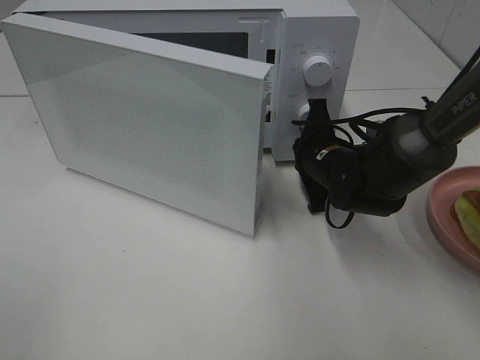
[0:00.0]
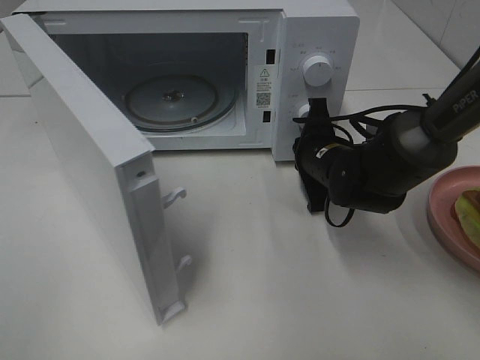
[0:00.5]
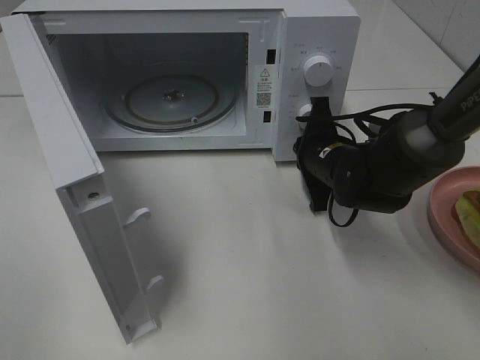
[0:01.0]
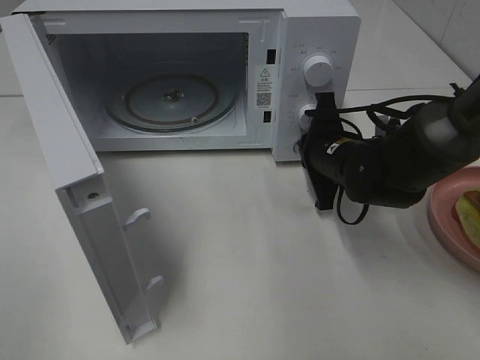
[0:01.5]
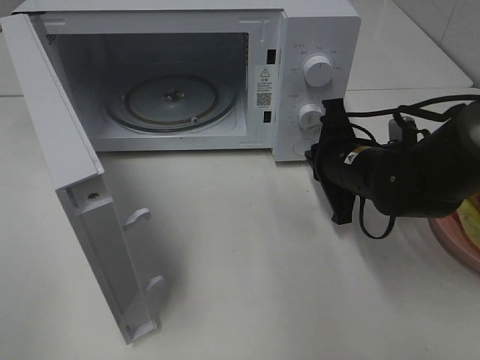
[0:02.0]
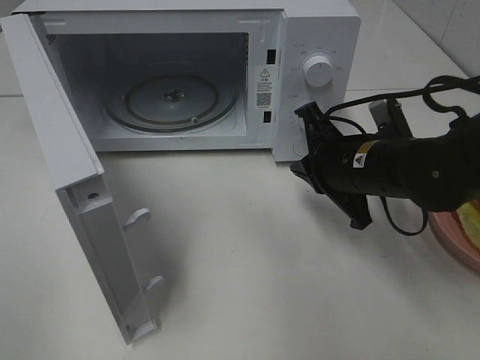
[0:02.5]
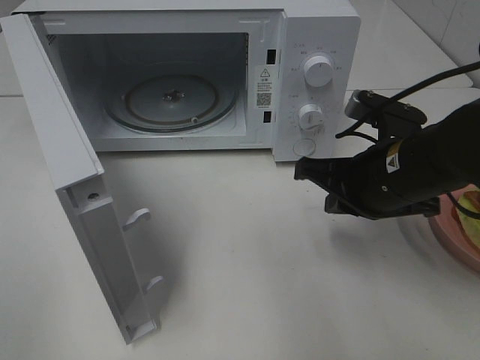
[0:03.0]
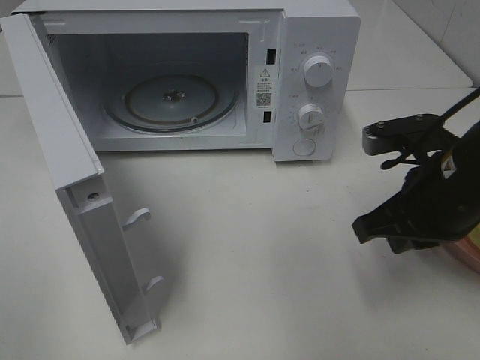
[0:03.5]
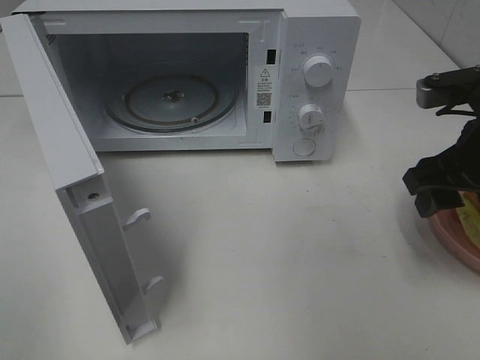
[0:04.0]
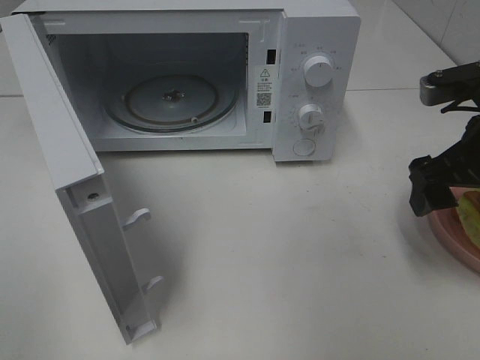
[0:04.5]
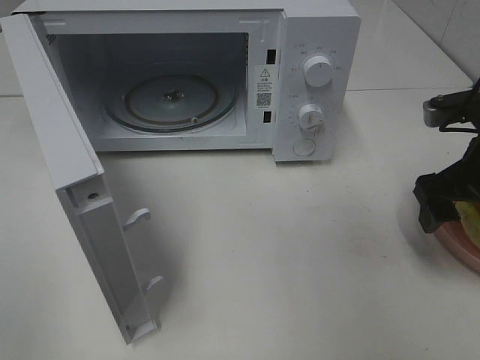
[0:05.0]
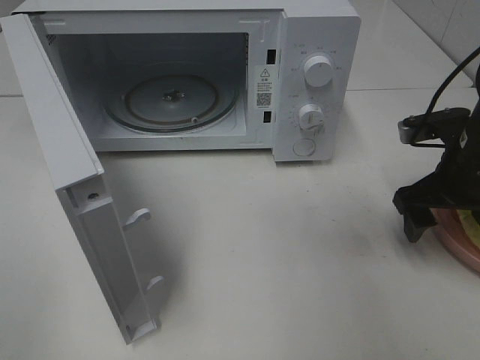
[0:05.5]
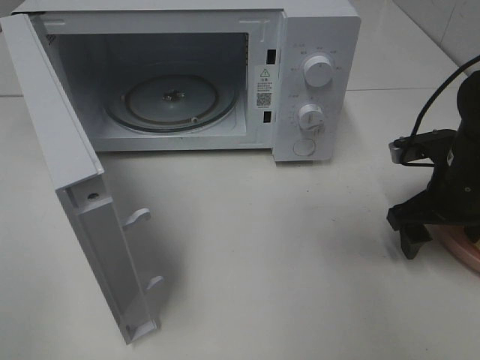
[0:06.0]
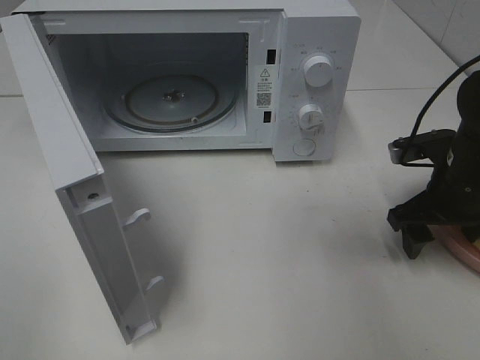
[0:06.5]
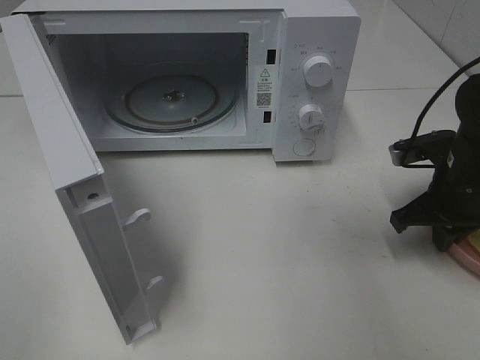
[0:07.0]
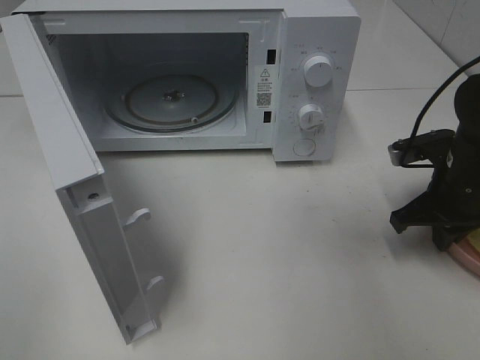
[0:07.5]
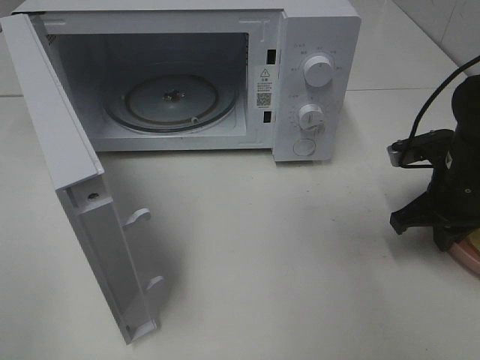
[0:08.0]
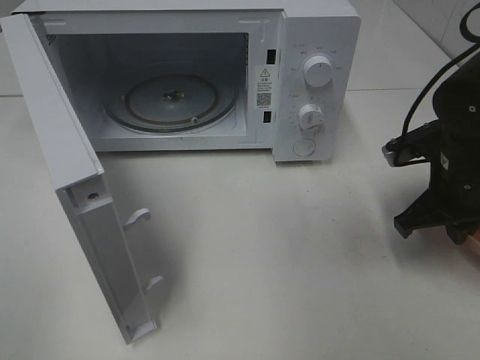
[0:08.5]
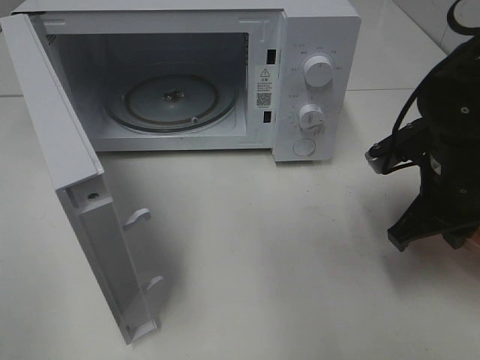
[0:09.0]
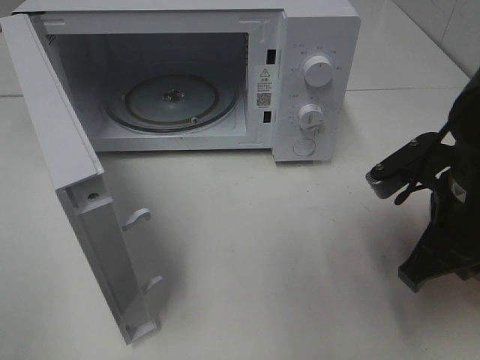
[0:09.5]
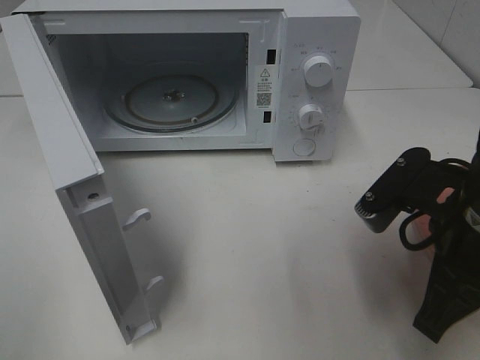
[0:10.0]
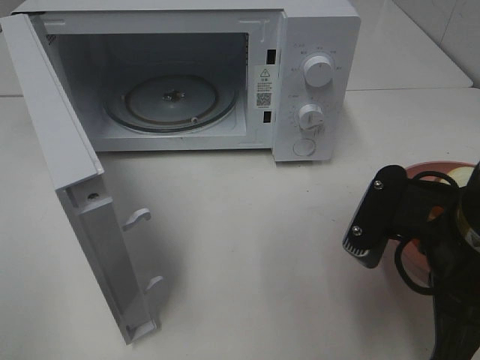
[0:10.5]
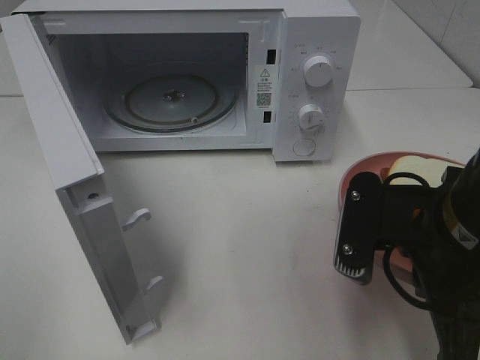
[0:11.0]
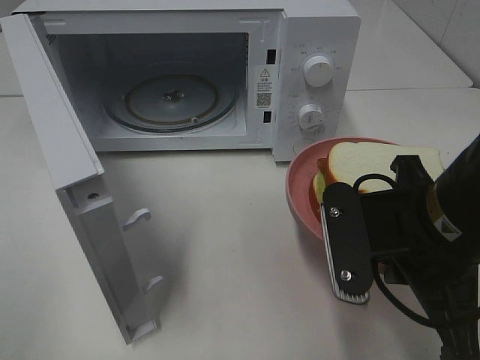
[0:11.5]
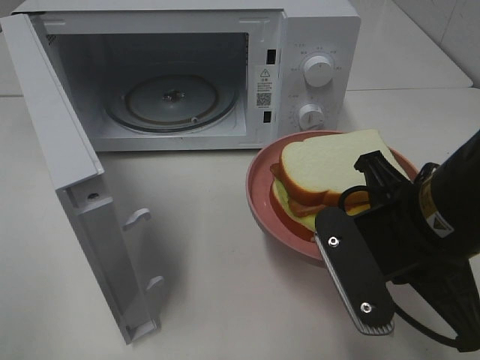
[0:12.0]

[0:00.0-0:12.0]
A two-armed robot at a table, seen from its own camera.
Task of the whole recording: Heat Sandwich.
Step, 0:02.0 to 0:07.5: Right hand: grab the plate with the sandwich.
0:00.0 to 0:02.0: The right gripper ends up about 5 cm from where it was.
0:02.0 to 0:04.0: The right gripper travels upward, to the right and backward by approximately 15 cm, and opens its fingers.
0:04.0 to 0:06.0: The right gripper moves downward, approximately 10 cm.
0:06.0 to 0:08.0: The right gripper closes its fingers.
0:08.0 to 0:10.0: The right gripper heads backward, to the left and upward, covering some 15 cm.

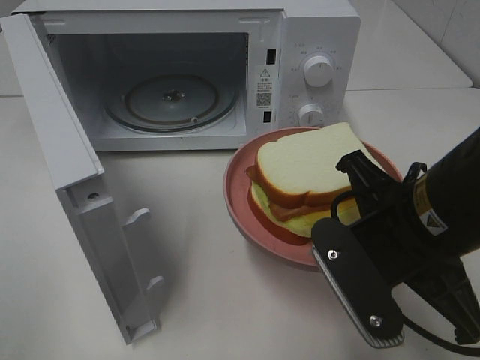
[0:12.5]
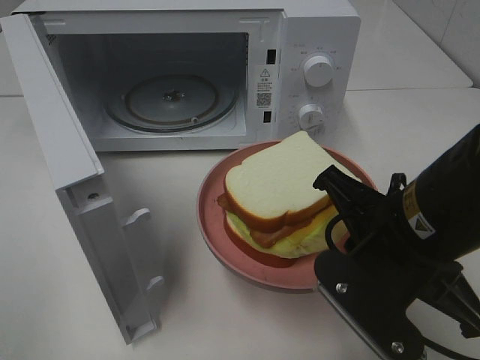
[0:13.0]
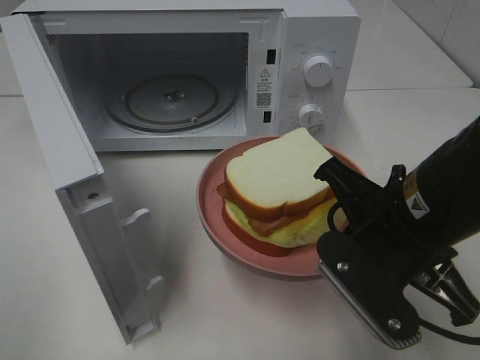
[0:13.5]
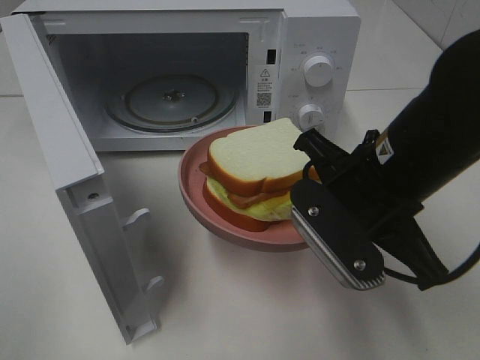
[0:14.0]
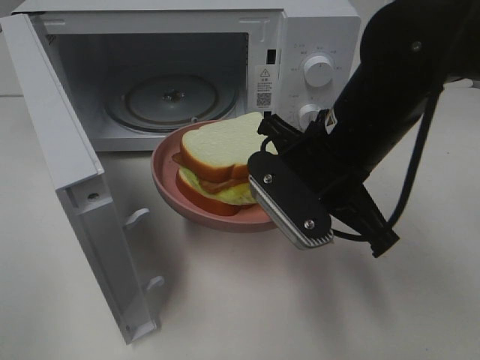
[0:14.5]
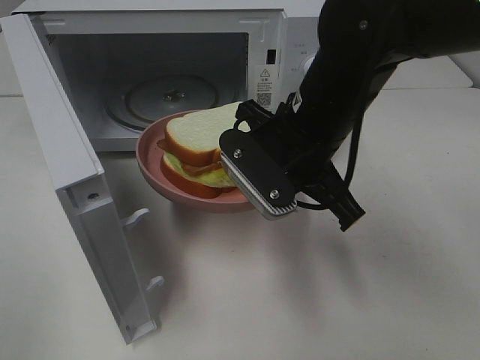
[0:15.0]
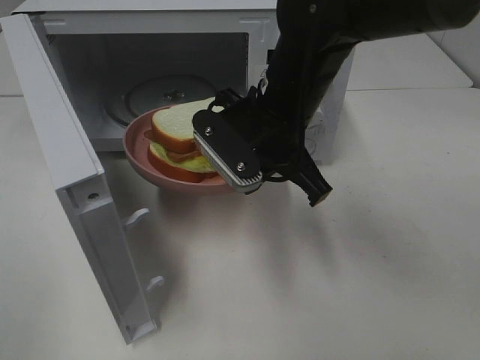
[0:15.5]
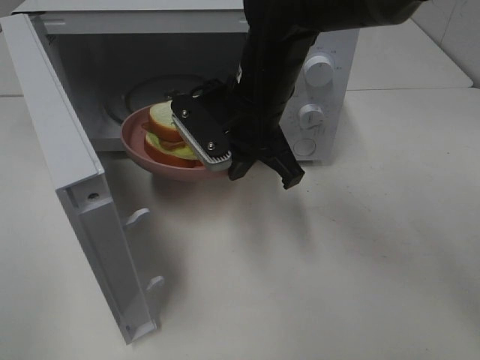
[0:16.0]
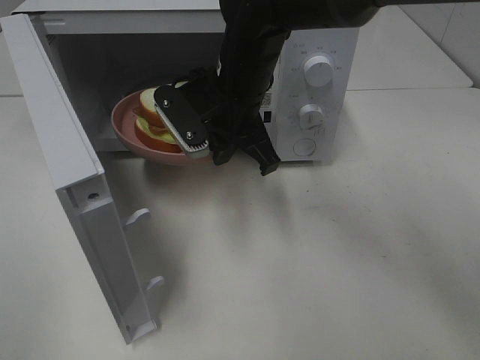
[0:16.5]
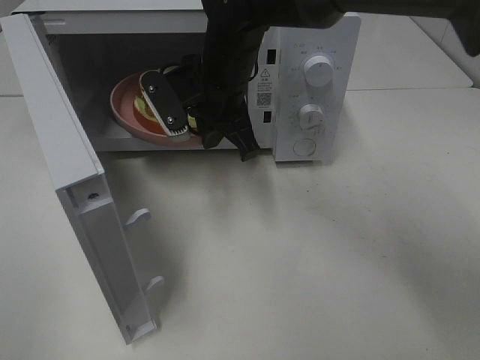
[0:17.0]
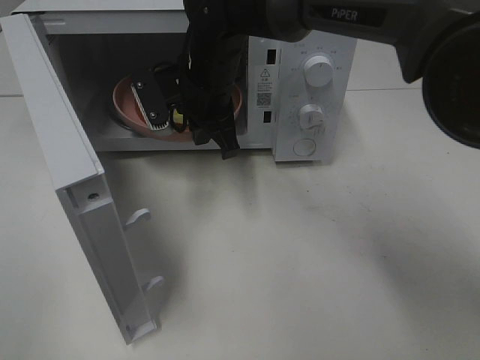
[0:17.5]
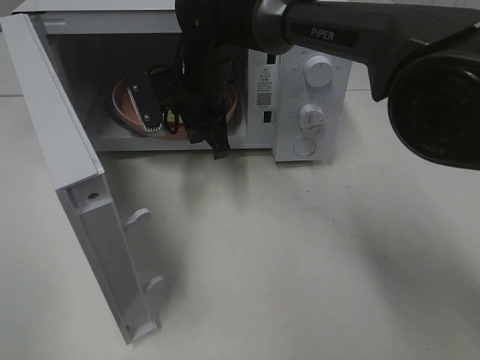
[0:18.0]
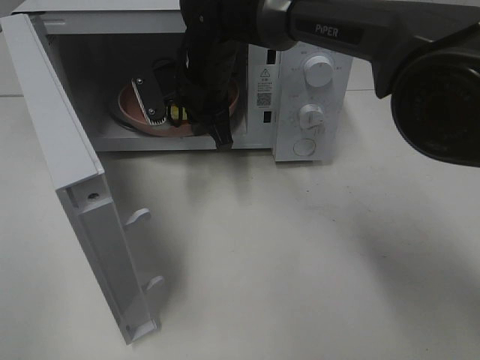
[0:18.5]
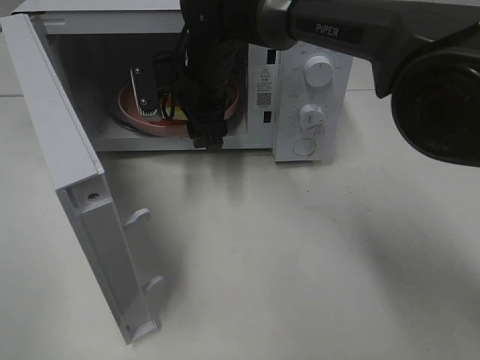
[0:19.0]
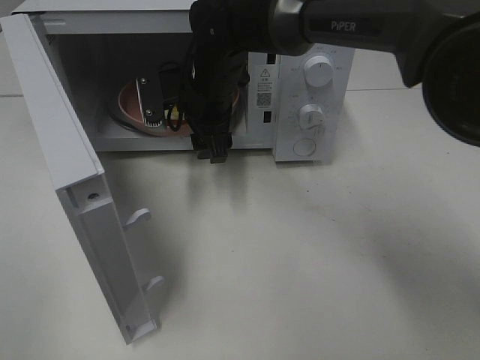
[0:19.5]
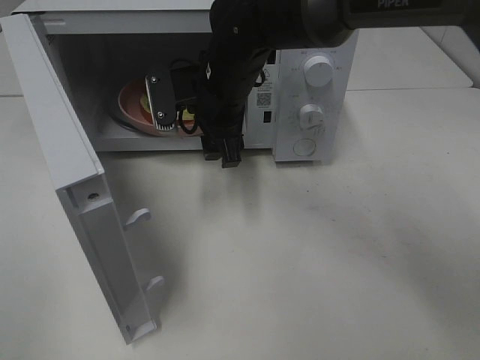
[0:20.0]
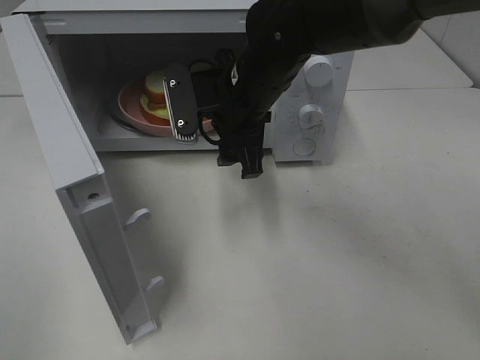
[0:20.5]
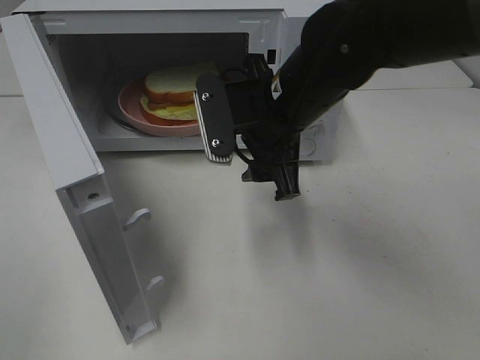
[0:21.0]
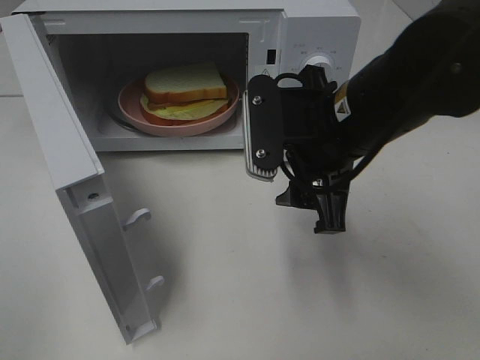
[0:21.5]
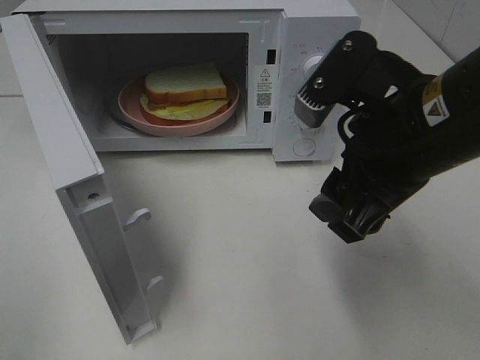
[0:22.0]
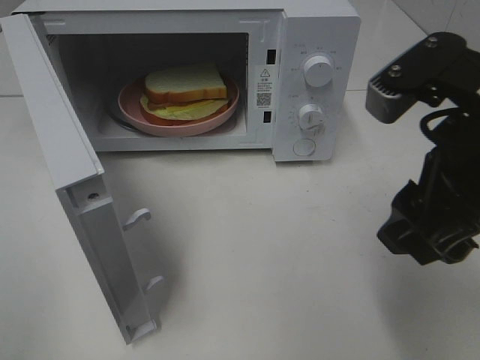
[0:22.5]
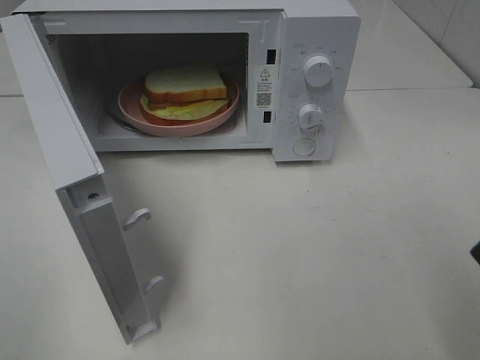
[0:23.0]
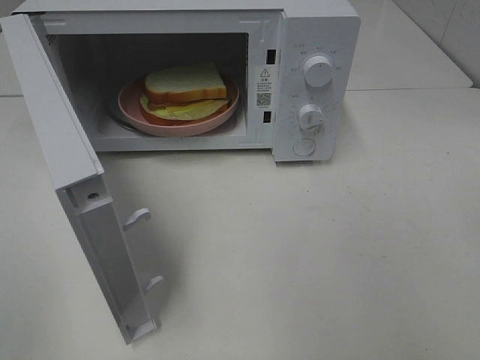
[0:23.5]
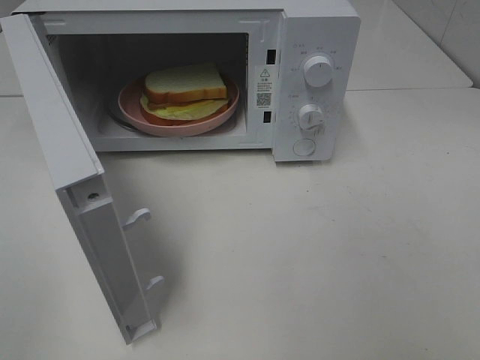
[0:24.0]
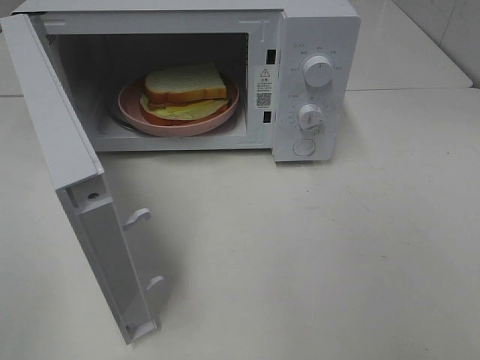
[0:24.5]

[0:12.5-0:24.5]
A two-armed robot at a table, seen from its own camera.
Task of the whole recording: Heat Sandwich.
Step, 0:12.5 to 0:19.5: Right hand: place the plate in the microwave.
0:12.5 to 0:14.5: The right gripper is displaced forward by about 10 cm.
0:14.5 to 0:16.5: The right gripper is displaced forward and to the left by some 15 cm.
0:16.5 to 0:18.5: The right gripper goes approximately 5 cm forward.
0:18.5 to 0:20.5: The right gripper is displaced backward and to the right by roughly 10 cm, and opens.
0:20.5 to 0:22.5: The right gripper travels backward, to the right and upward by roughly 25 cm.
0:22.5 to 0:24.5: The right gripper moves backward and to the right, about 20 cm.

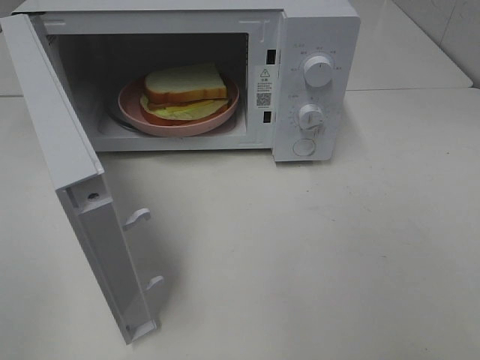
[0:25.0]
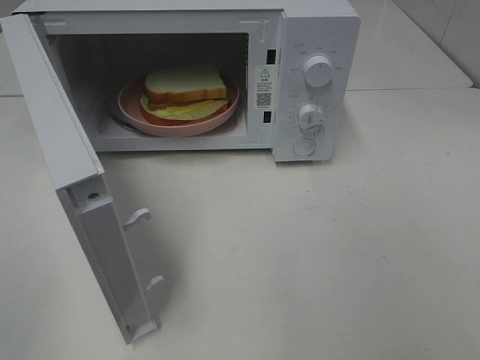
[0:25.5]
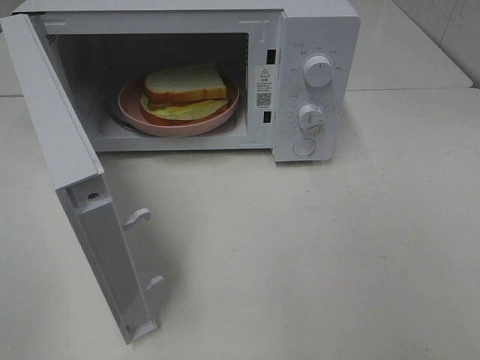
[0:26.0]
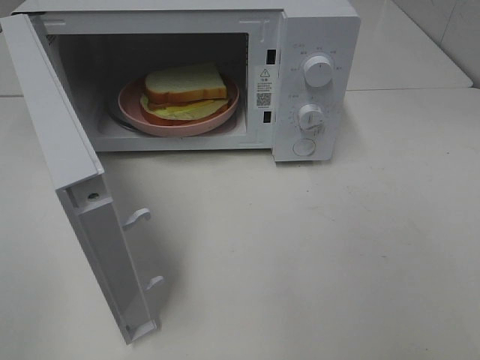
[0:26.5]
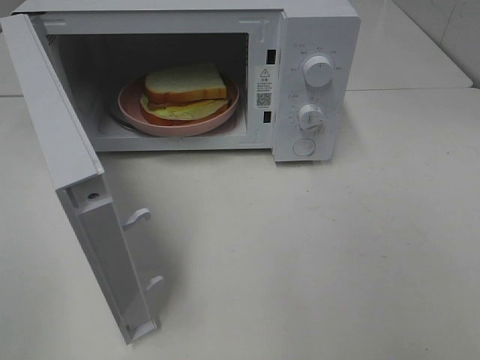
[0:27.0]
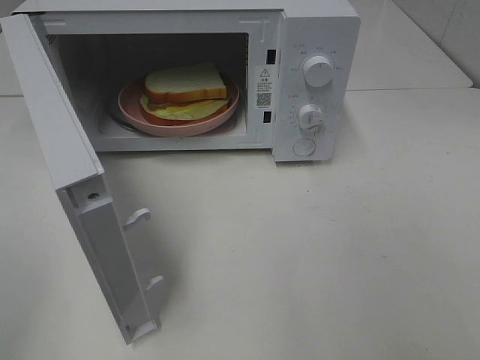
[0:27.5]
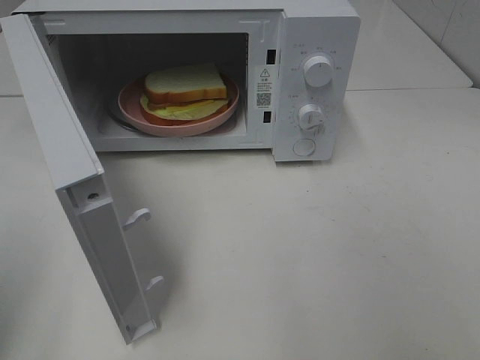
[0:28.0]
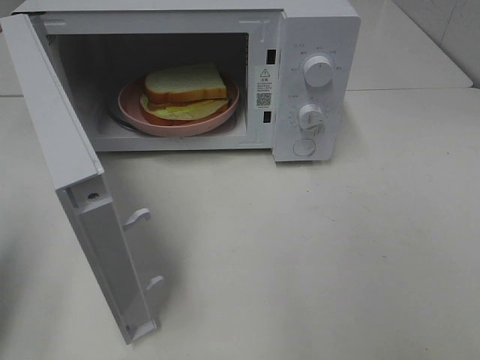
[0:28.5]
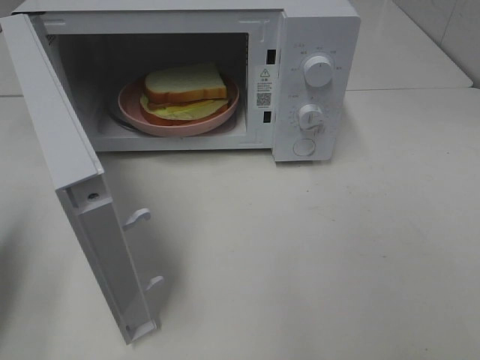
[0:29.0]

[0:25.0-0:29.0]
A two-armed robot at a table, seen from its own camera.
Task of the whole recording: Heat Sandwich.
0:25.0 to 0:27.0: Both grippers stay put.
0:27.0 to 0:29.0: The left gripper is displaced forward and downward by some 20 cm, and closes up.
